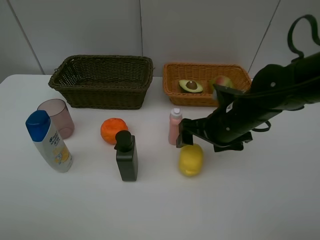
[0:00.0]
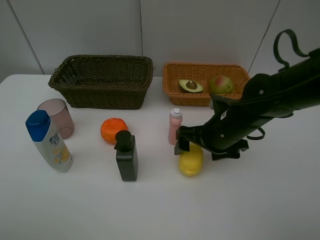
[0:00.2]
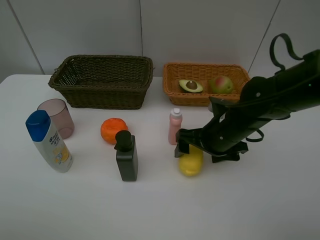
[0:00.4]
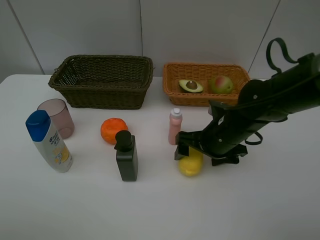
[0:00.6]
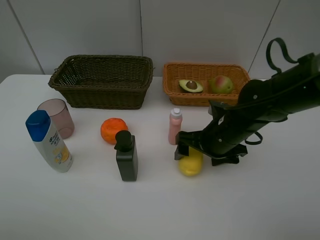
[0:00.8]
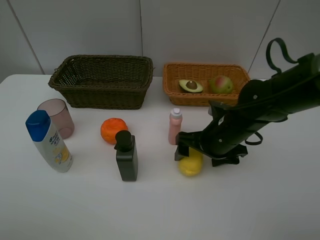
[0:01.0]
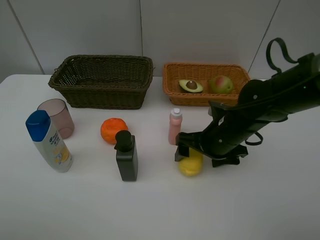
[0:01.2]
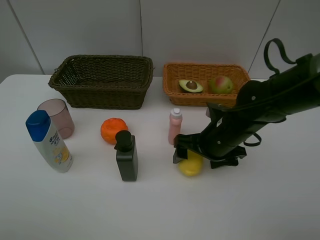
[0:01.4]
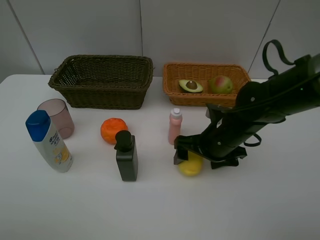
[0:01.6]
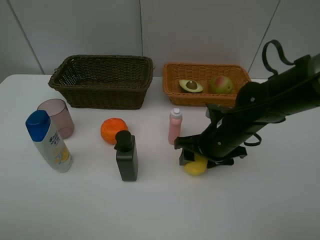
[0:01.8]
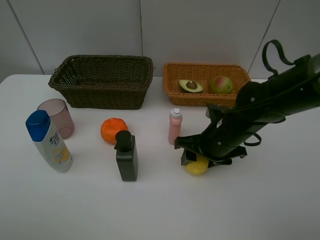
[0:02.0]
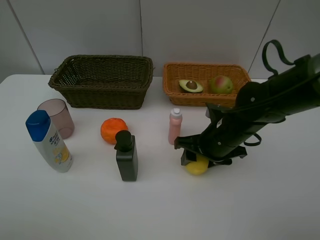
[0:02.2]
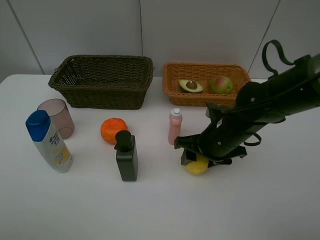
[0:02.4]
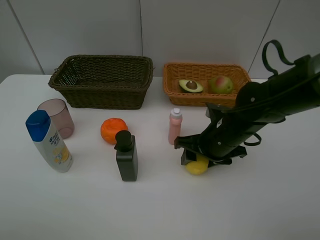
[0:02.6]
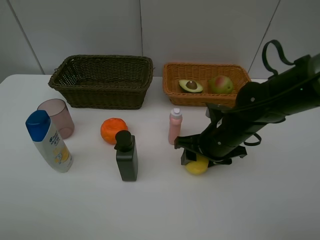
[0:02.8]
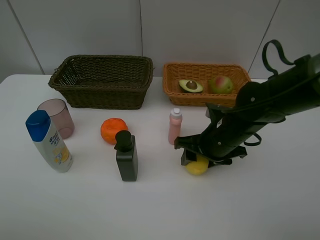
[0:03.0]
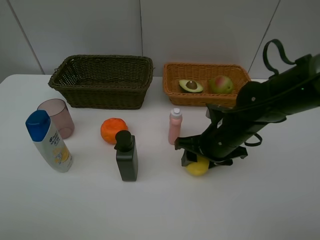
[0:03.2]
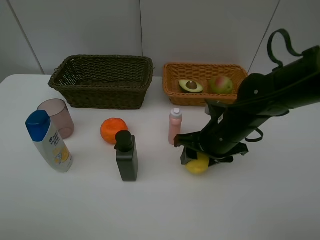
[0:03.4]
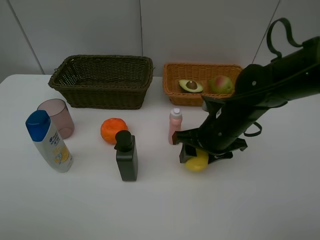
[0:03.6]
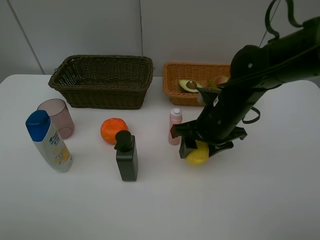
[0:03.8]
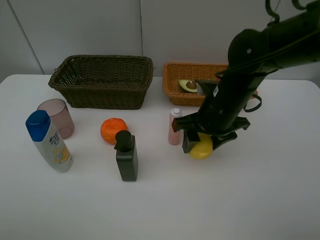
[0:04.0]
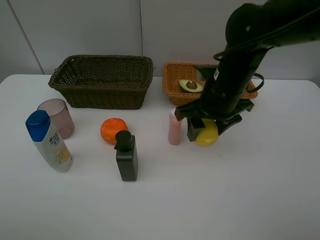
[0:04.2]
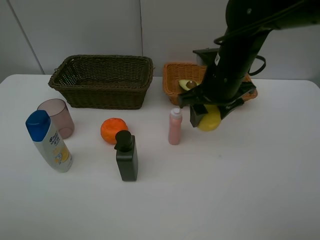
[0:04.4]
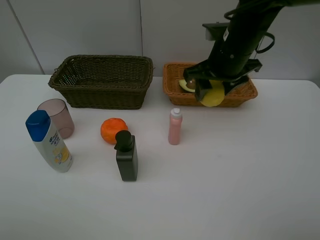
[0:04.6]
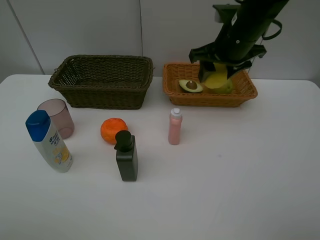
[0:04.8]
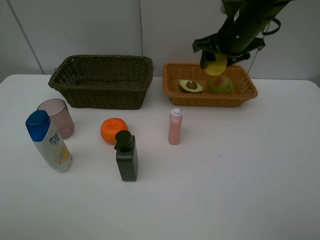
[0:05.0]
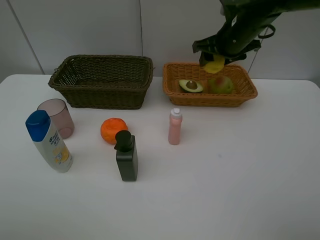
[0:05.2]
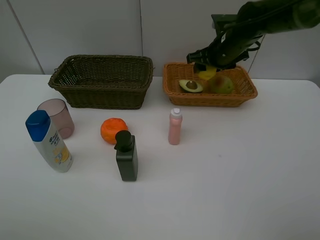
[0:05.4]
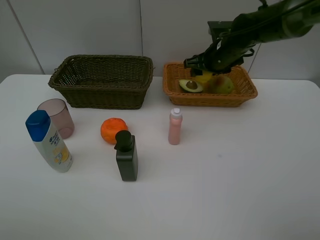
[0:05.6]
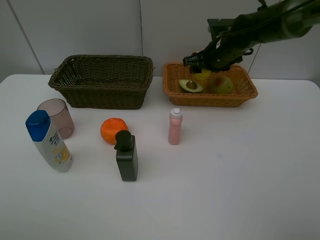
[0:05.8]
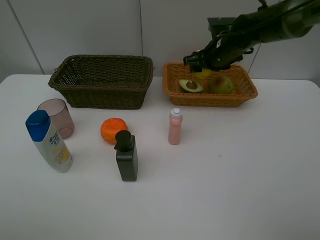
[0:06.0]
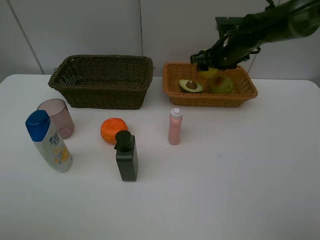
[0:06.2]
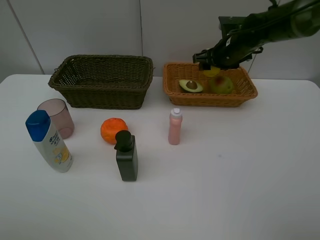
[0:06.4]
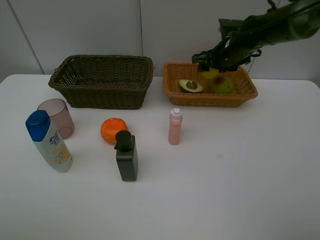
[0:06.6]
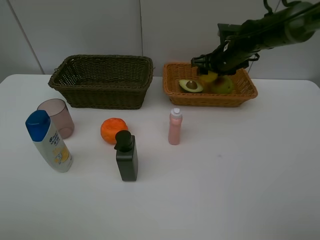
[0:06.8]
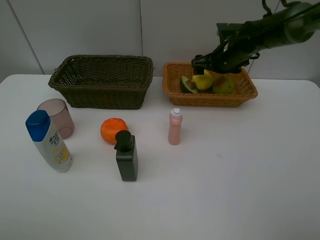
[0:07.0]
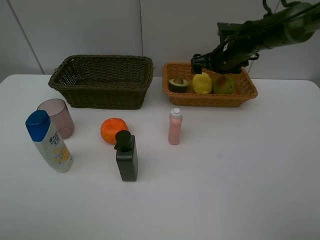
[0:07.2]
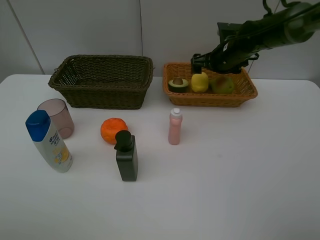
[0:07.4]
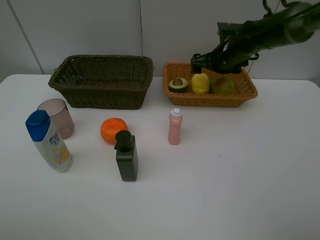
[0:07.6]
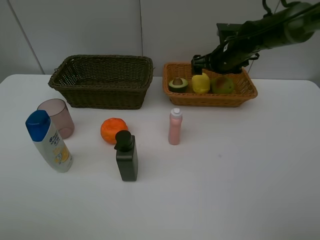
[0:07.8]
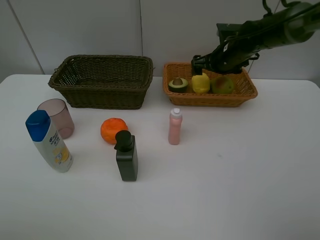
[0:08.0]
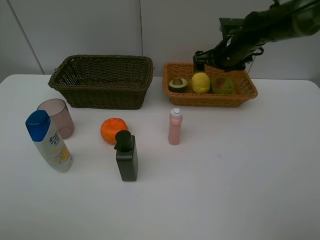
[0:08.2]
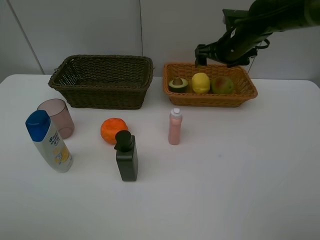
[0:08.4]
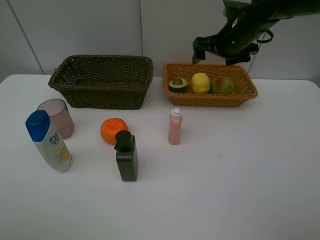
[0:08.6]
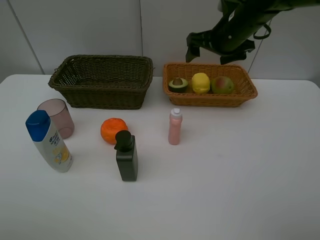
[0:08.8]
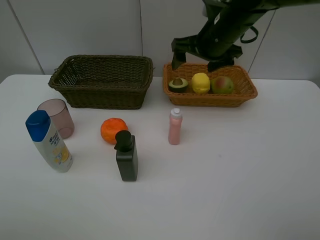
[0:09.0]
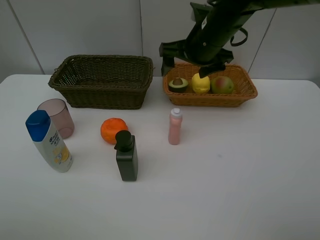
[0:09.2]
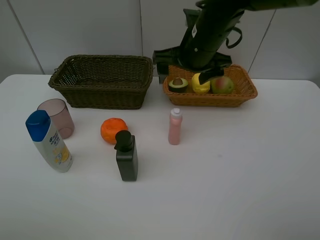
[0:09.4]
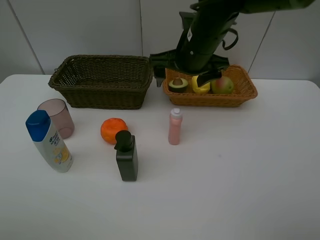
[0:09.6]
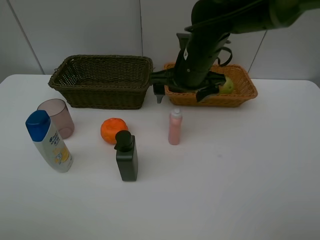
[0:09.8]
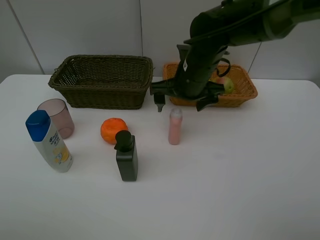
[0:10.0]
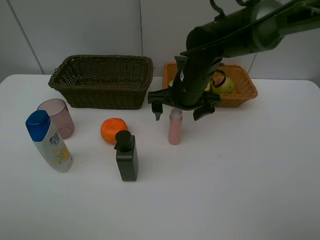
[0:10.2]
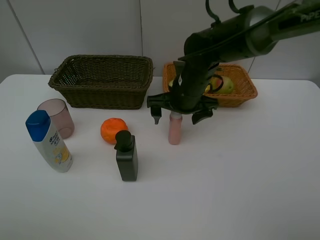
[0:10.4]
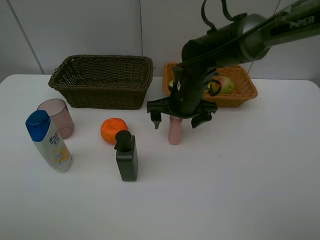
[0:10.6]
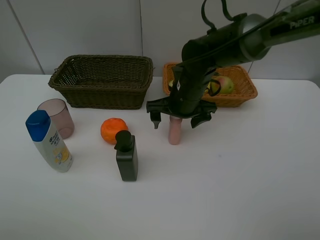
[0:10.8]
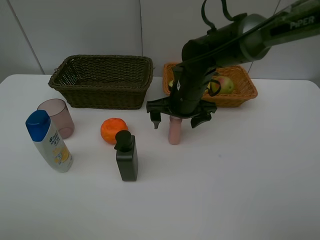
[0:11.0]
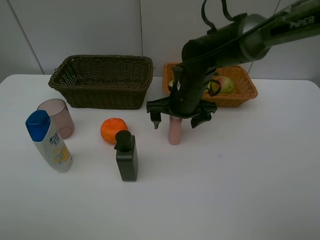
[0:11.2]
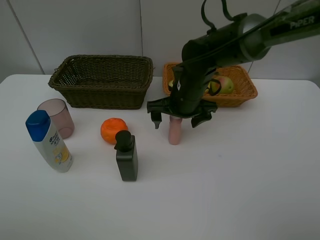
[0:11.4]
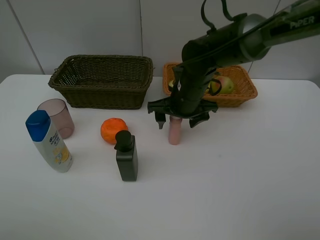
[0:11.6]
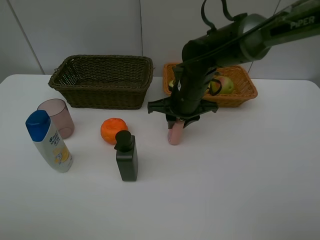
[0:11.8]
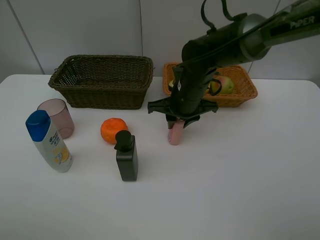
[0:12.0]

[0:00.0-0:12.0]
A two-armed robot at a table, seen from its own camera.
Task of the whole recording: Place multiple objects separately in different baskets.
Step, 0:00.0 to 0:03.4: Pick up the lemon with right gripper.
Step, 0:03.6 to 0:07.6: Place the lemon in the light basket with right gripper.
0:00.0 to 0:01.6: The grippers move only a little.
0:01.6 to 0:03.0: The right gripper closes its fingers.
0:03.0 to 0:04.4: The right gripper moves upward and forward, about 15 cm.
0:04.4 to 0:06.0: The right gripper is displaced forward by about 15 cm.
0:06.0 to 0:07.6: The right gripper opens.
0:07.6 to 0:09.0: The right gripper goes roughly 15 cm backward, upward and to the left.
0:09.0 to 0:10.4: The right gripper travels downward by roughly 10 cm.
0:10.4 to 0:12.0: The right gripper closes its fingers.

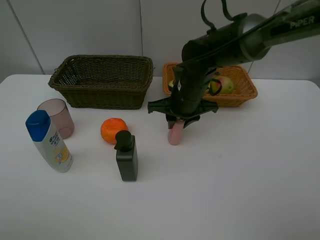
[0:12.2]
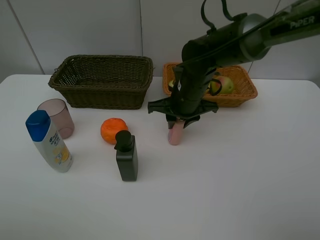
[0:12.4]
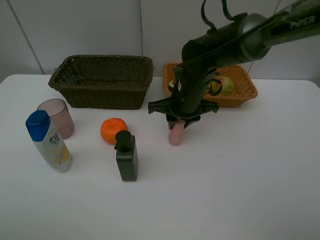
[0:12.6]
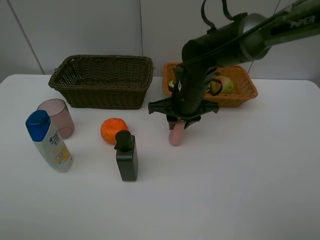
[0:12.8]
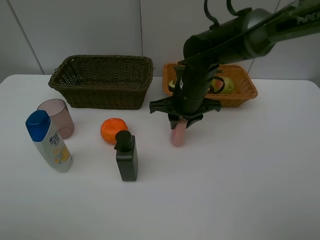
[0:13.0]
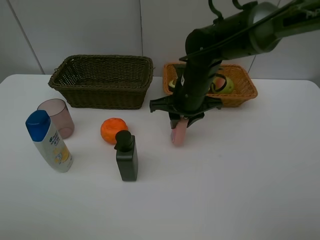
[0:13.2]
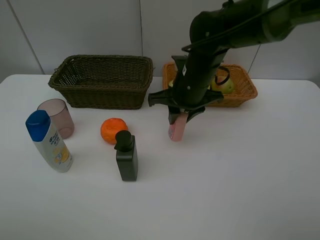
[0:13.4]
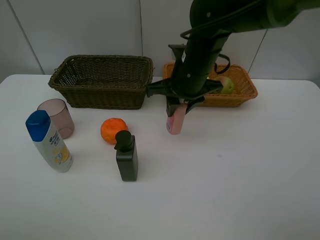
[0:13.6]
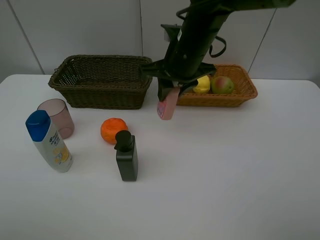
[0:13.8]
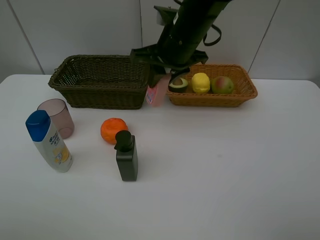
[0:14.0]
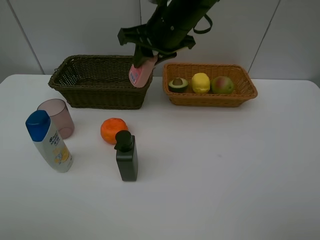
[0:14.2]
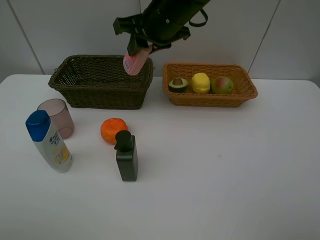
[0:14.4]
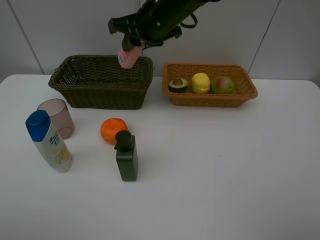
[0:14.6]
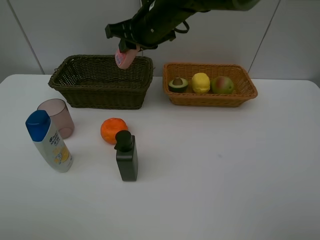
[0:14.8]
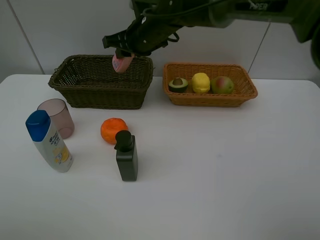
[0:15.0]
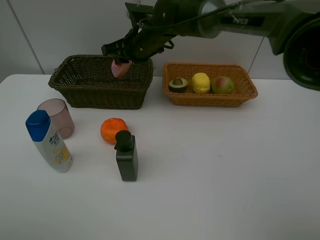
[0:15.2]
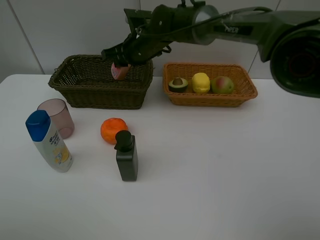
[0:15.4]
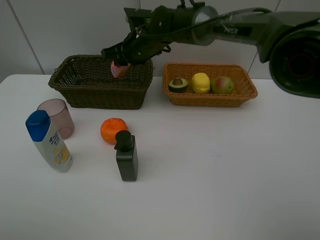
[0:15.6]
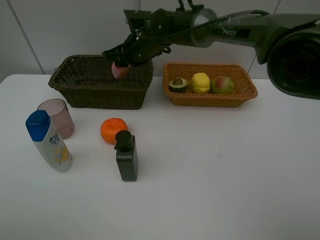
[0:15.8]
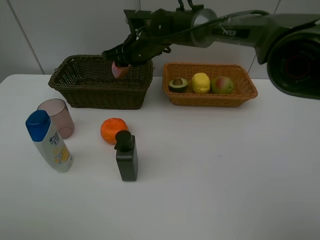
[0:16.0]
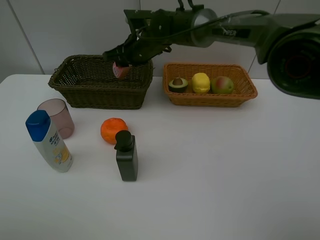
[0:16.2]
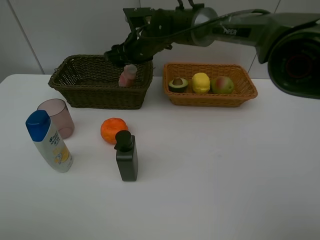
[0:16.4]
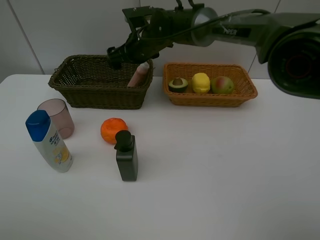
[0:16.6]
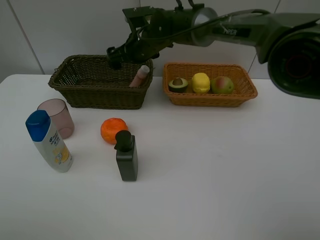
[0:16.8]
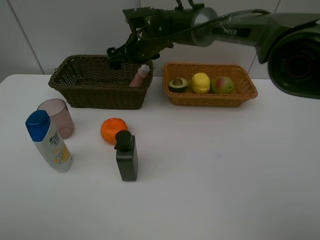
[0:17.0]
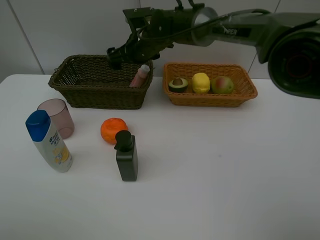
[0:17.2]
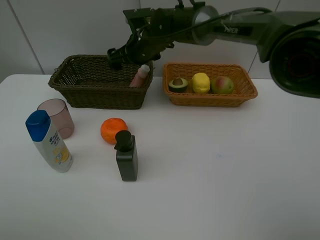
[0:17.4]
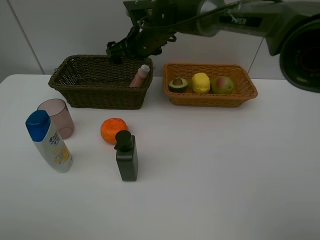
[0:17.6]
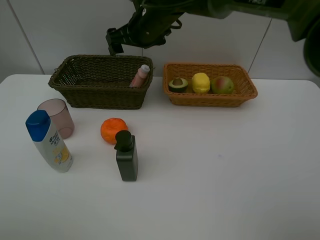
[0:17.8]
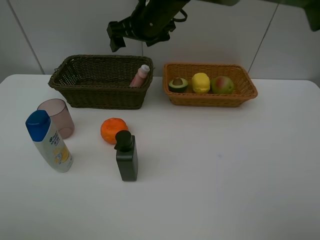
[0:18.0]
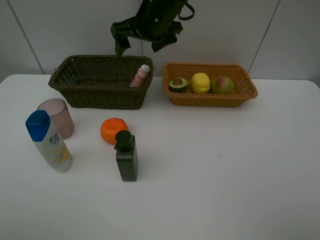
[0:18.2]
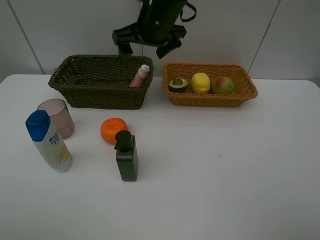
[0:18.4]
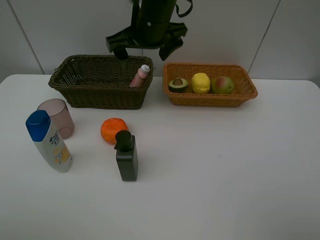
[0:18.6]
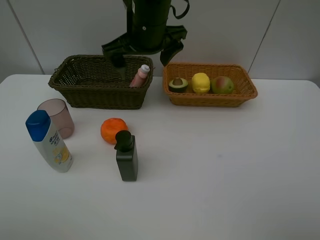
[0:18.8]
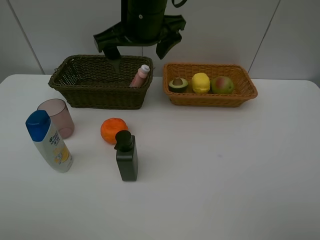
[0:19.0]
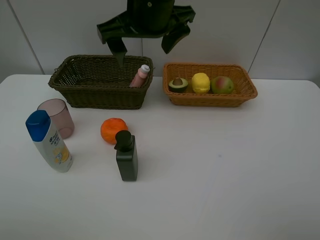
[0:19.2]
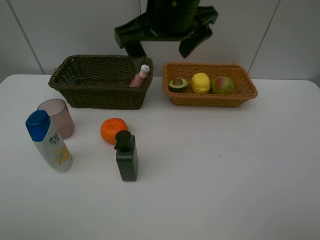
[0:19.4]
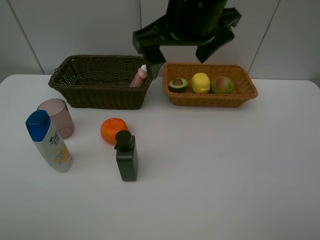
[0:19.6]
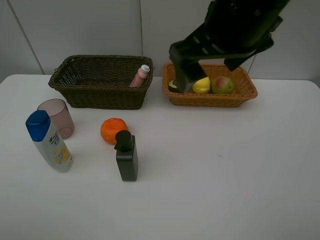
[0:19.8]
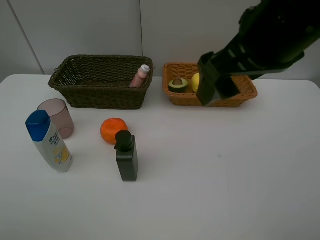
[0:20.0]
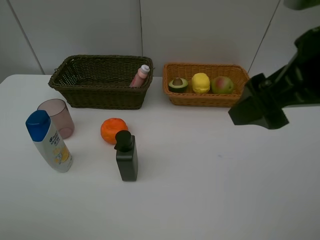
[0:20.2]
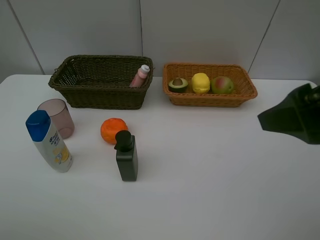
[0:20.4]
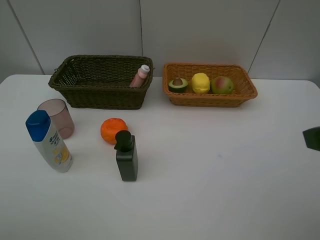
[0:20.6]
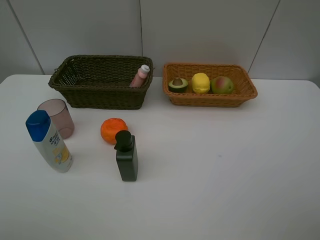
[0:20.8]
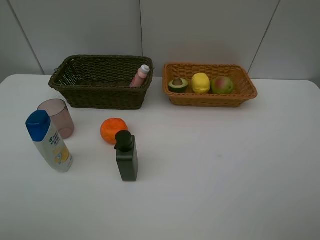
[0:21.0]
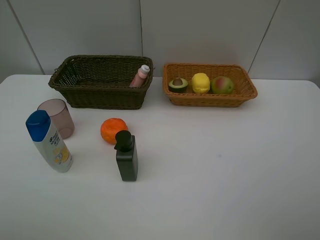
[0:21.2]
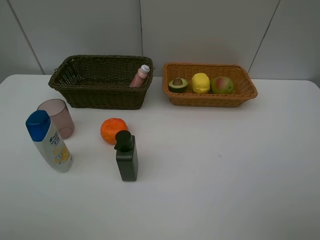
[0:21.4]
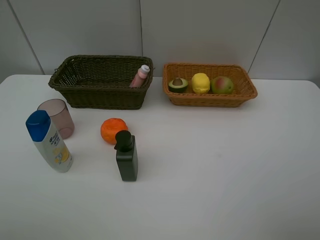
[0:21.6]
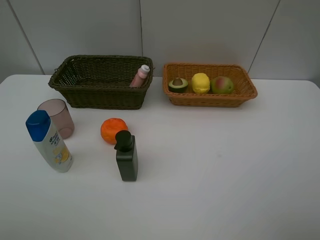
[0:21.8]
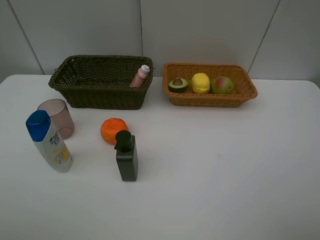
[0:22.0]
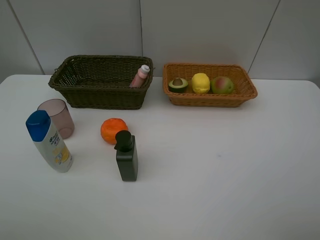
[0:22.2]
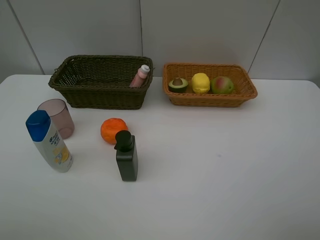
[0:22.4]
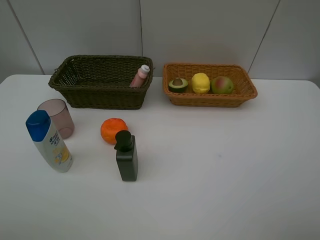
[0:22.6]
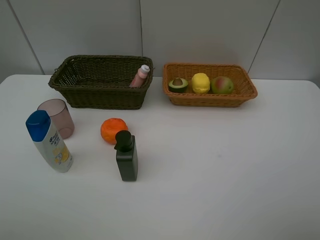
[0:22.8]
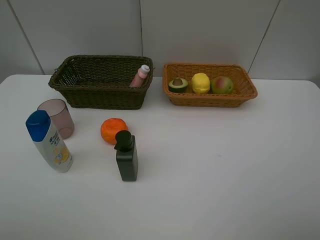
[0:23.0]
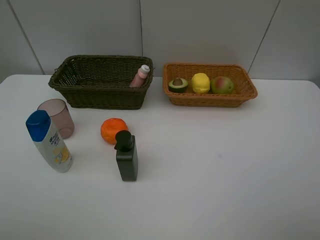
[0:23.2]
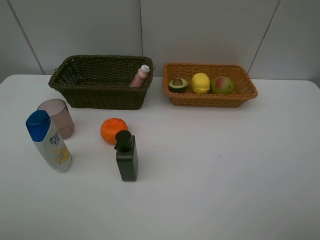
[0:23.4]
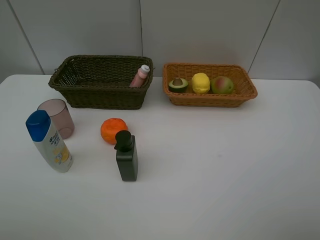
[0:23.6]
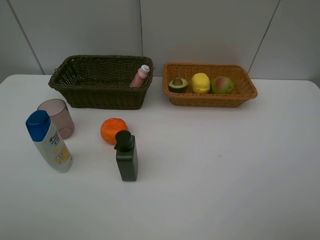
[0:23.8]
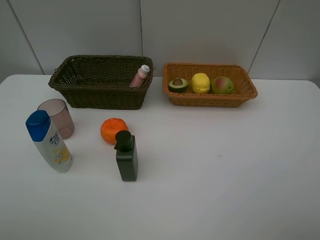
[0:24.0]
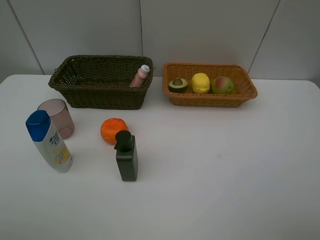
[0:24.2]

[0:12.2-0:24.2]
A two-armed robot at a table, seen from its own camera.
Task of the whole recording: Place multiple objects separately in different baskets.
Step, 0:13.4 to 0:16.6: Place the laundry detergent in the dark basket with right gripper.
0:12.2 to 0:13.8: The right gripper is displaced upward by roughly 10 cm.
0:13.8 to 0:15.2: The right gripper moves forward and to the left, roughly 15 cm.
0:15.2 to 0:16.6: The right gripper opens.
0:16.6 to 0:18.2: The right gripper moves upward, about 10 cm.
0:18.2 to 0:19.8: The right gripper goes roughly 20 cm backward and to the right.
0:19.8 to 0:21.2: The right gripper heads to the right and backward, covering approximately 25 cm.
